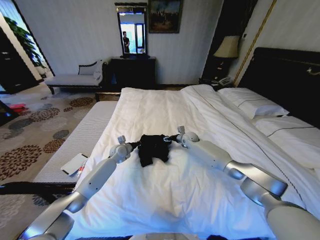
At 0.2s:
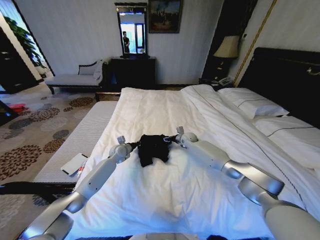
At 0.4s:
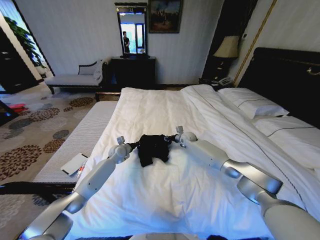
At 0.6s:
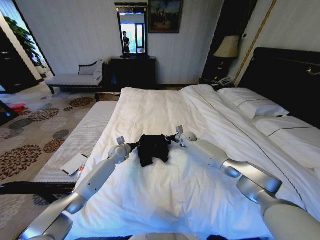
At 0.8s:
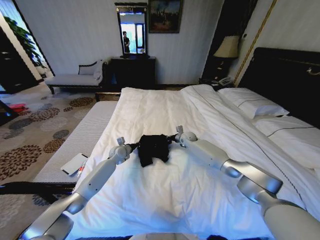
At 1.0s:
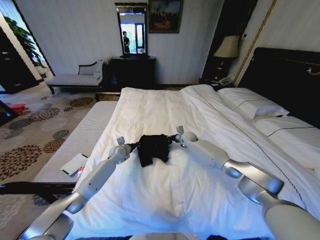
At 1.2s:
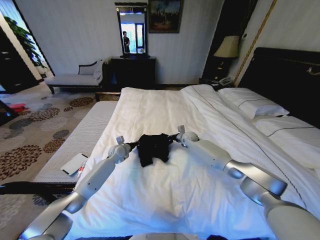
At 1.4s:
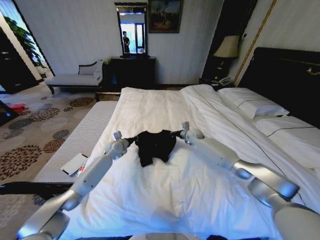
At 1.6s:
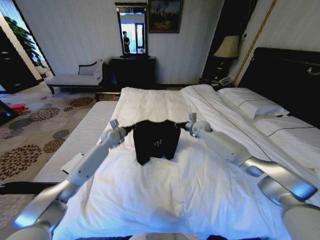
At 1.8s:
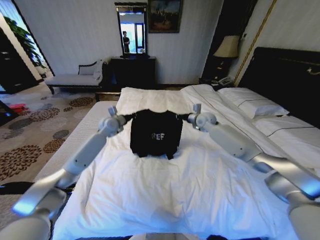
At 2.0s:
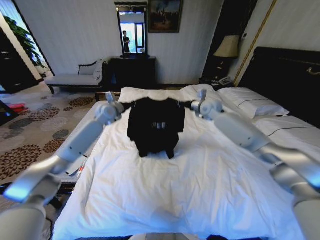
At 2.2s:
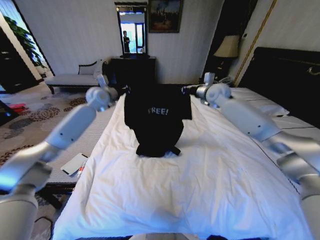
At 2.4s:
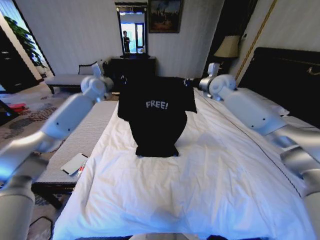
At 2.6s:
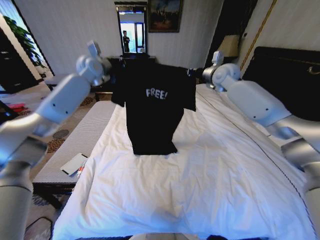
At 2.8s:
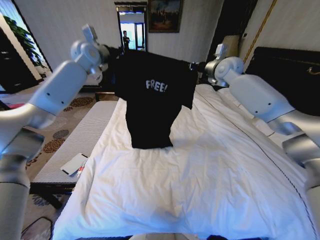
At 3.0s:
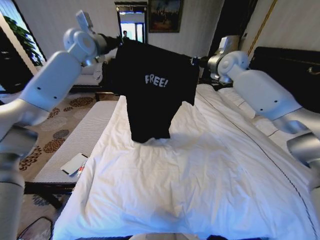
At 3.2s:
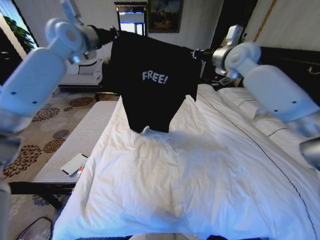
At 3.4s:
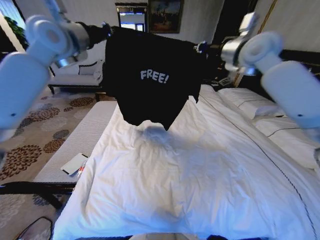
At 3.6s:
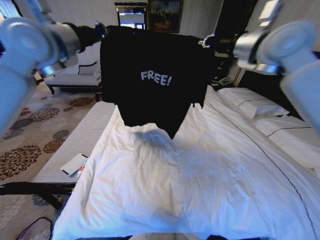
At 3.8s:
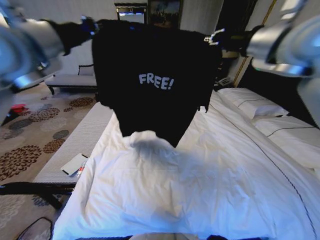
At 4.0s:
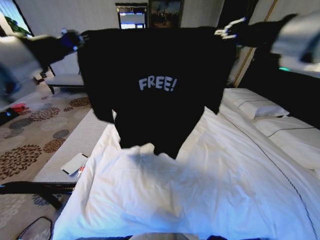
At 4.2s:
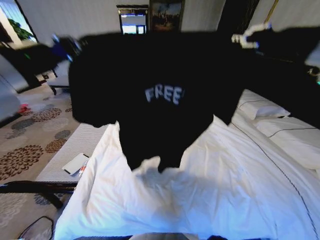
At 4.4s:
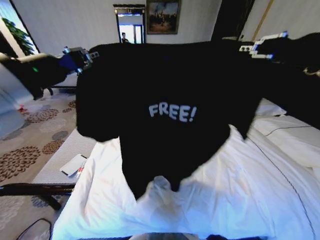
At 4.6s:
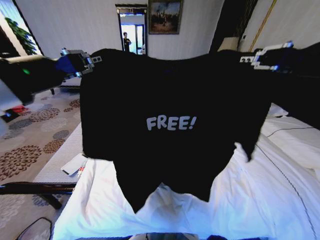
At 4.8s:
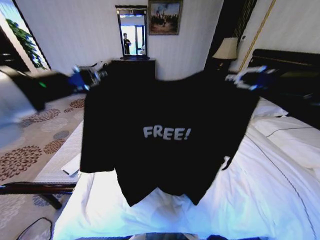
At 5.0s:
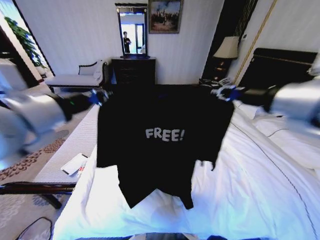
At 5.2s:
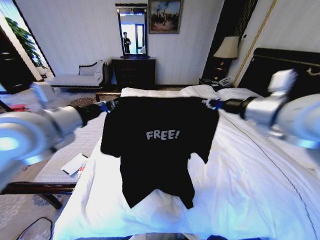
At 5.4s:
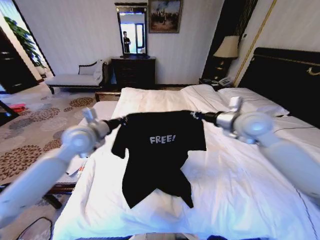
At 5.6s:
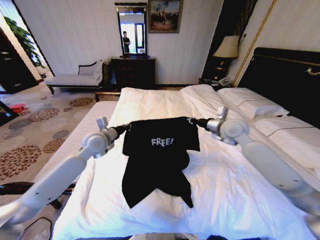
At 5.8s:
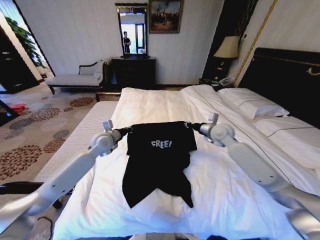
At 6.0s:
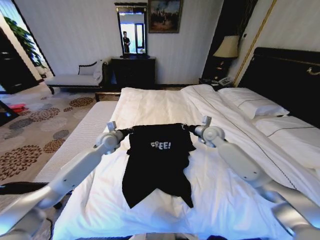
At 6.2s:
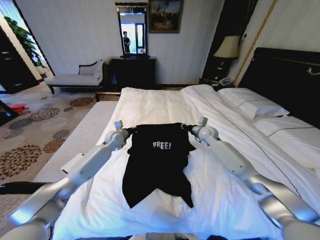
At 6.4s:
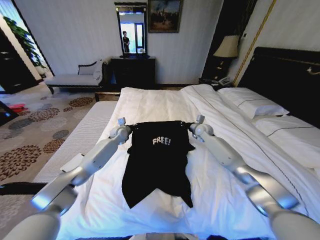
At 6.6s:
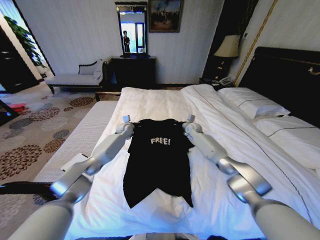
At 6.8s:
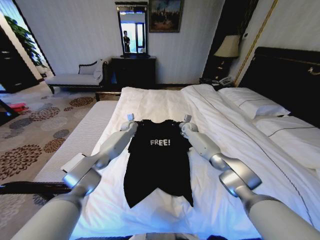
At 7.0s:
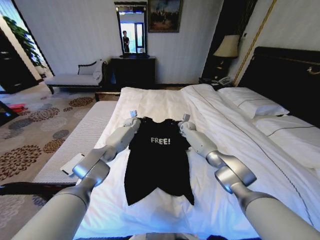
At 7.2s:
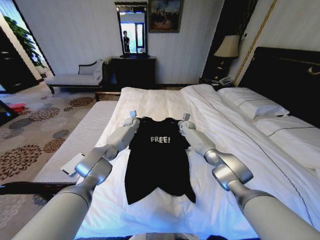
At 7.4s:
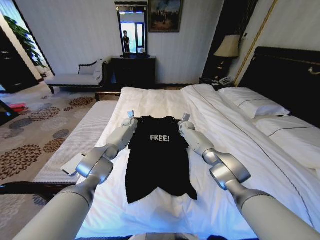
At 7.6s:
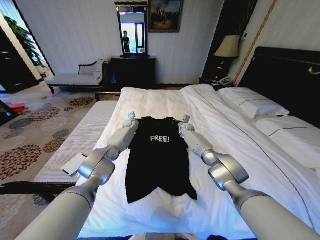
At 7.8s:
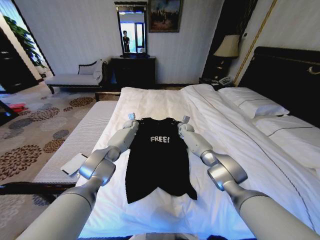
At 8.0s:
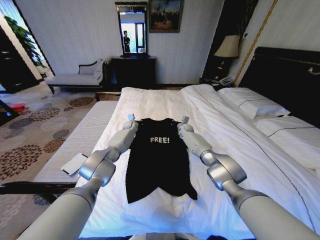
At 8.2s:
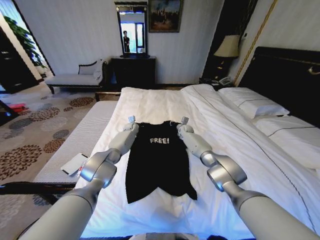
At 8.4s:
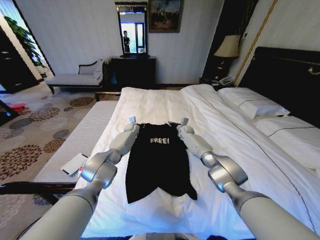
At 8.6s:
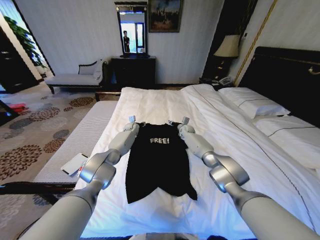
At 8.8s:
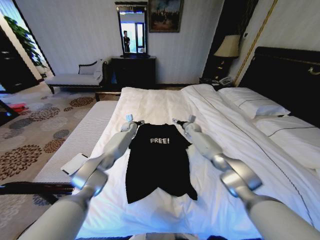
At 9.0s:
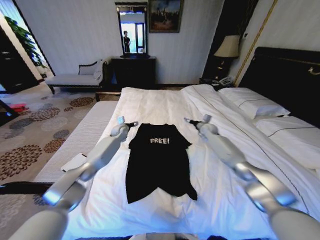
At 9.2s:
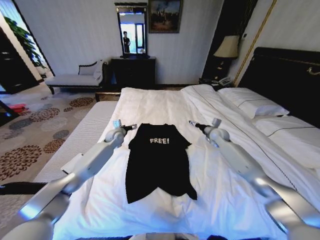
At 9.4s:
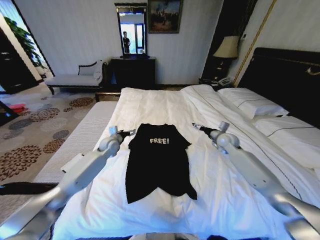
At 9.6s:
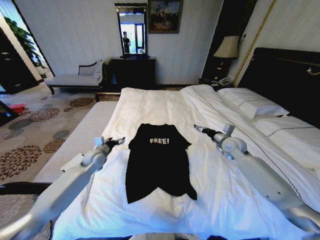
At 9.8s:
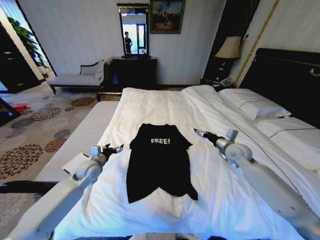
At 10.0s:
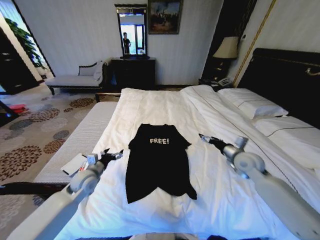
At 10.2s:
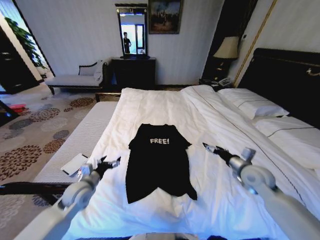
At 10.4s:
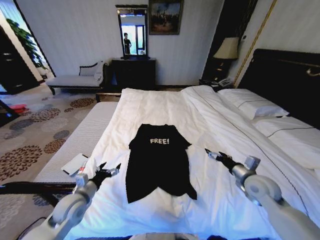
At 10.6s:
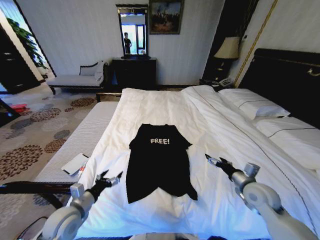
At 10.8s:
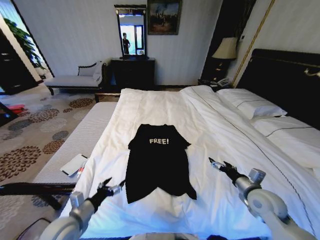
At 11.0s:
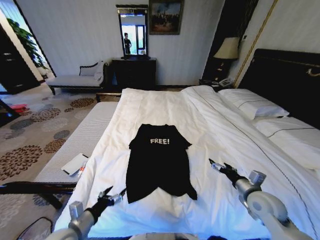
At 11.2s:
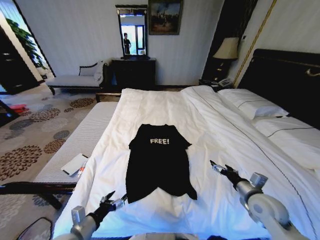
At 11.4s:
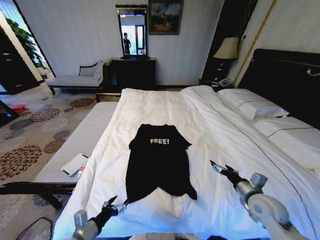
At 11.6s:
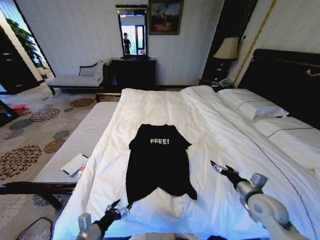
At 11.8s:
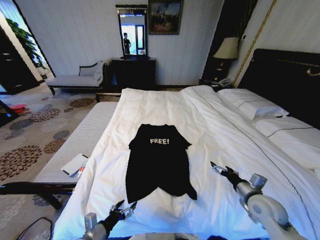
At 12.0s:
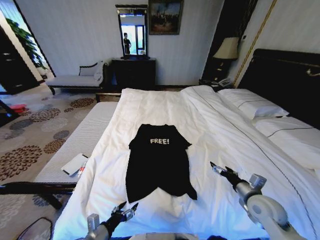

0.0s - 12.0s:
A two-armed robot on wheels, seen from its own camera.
Task of the whole recording: Fold the clothes on the bed.
0.0s - 1.6s: The grippers both shift upward by approximately 10 cm. The right gripper closes its fingers.
1.6s - 3.0s: The grippers both shift upward by some 35 cm.
3.0s - 4.4s: Both grippers move backward, some 40 cm.
4.4s - 6.0s: Both grippers travel together downward and forward, about 40 cm.
6.0s - 7.6s: The right gripper shifts approximately 20 cm forward, downward and to the left; the left gripper heads forward, covering approximately 20 cm.
7.6s - 9.0s: The left gripper goes approximately 10 cm backward and to the left, and opens. Meanwhile the right gripper is displaced to the right and backward by some 15 cm, and opens its fingers.
9.0s - 10.4s: The two grippers go roughly 35 cm backward.
10.4s - 12.0s: The left gripper travels backward, downward and to the right by about 15 cm, while the right gripper travels backward by roughly 5 cm.

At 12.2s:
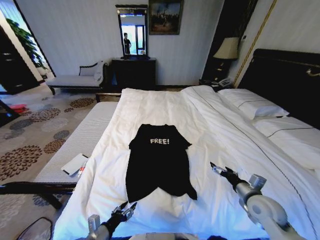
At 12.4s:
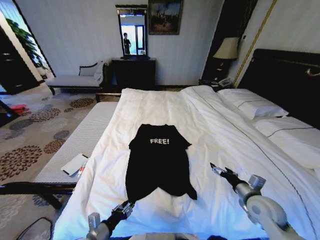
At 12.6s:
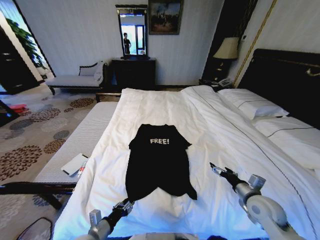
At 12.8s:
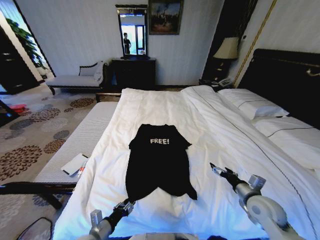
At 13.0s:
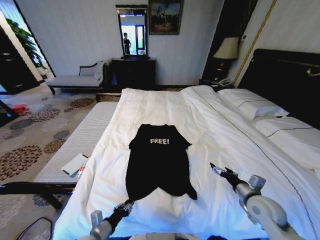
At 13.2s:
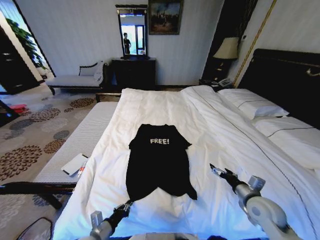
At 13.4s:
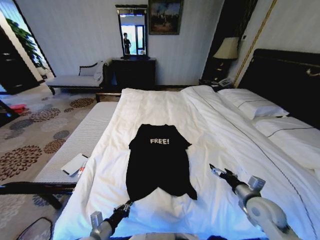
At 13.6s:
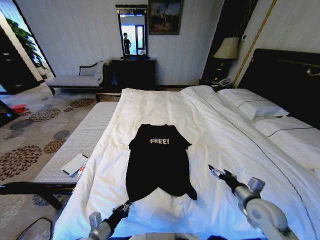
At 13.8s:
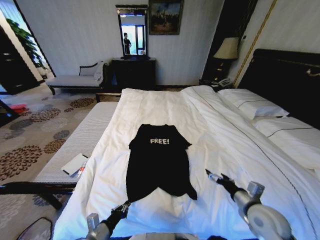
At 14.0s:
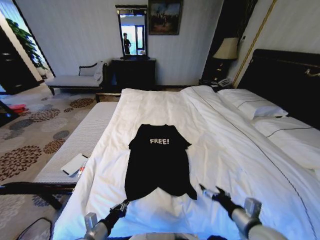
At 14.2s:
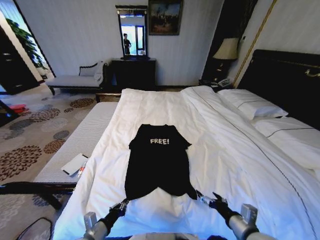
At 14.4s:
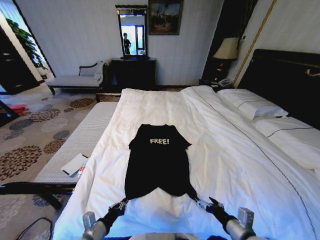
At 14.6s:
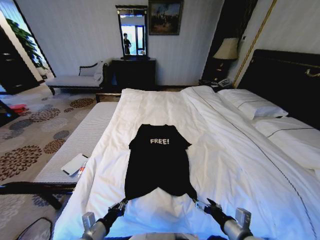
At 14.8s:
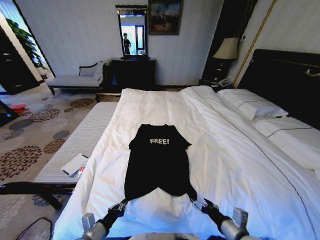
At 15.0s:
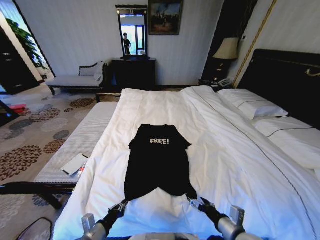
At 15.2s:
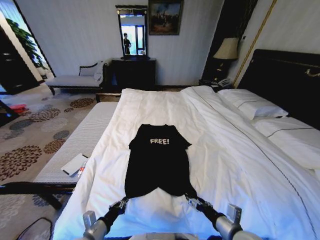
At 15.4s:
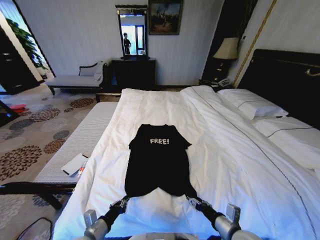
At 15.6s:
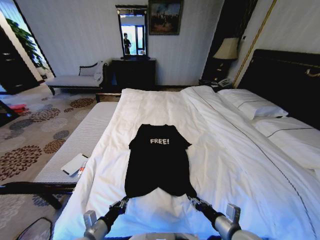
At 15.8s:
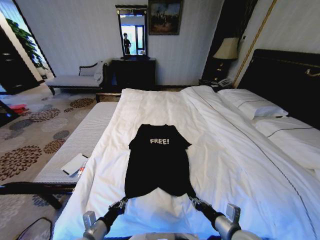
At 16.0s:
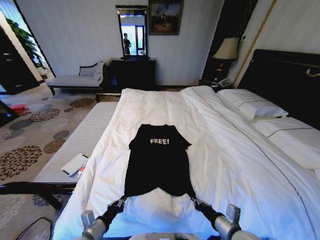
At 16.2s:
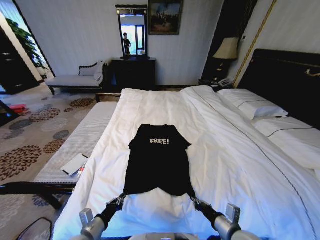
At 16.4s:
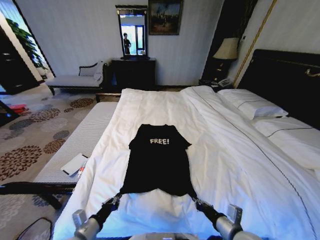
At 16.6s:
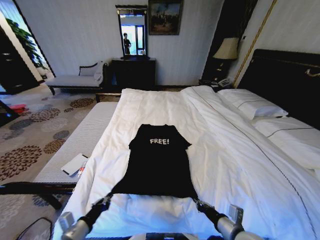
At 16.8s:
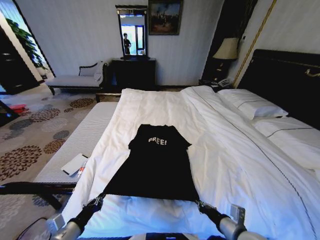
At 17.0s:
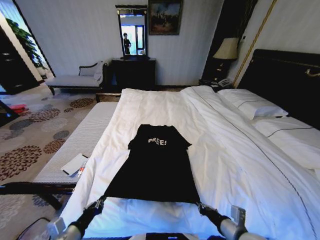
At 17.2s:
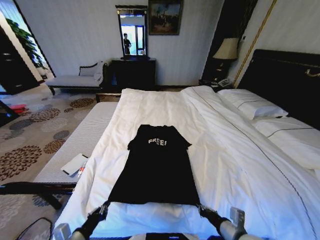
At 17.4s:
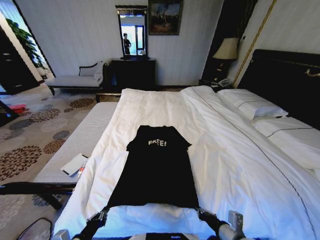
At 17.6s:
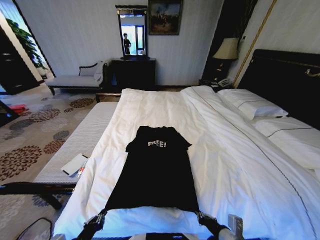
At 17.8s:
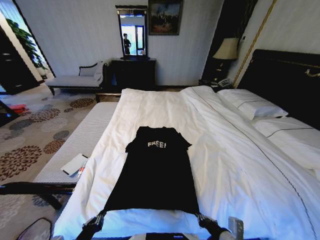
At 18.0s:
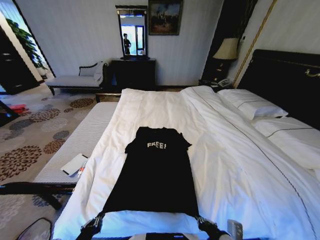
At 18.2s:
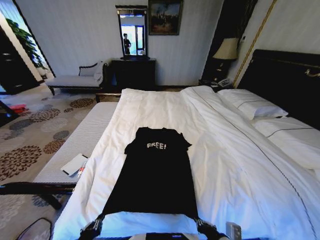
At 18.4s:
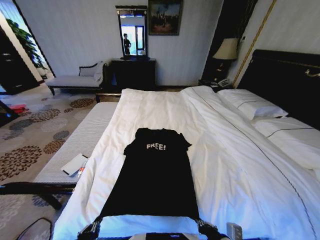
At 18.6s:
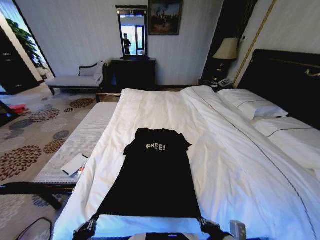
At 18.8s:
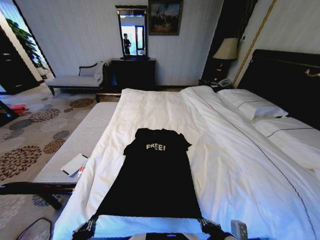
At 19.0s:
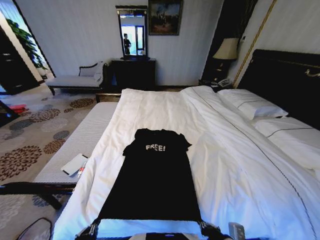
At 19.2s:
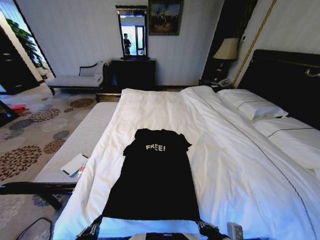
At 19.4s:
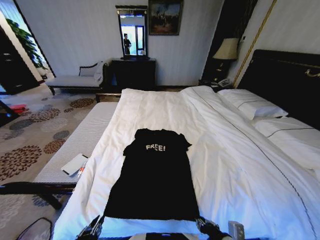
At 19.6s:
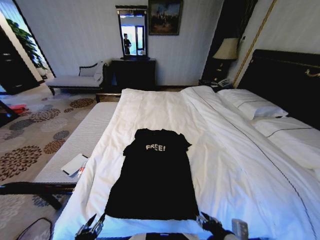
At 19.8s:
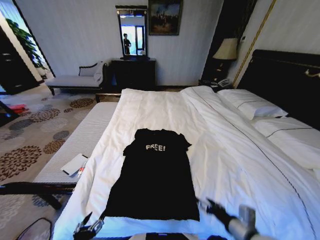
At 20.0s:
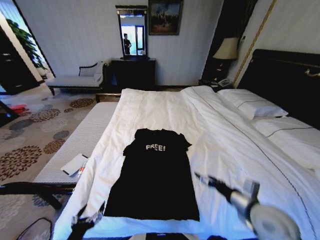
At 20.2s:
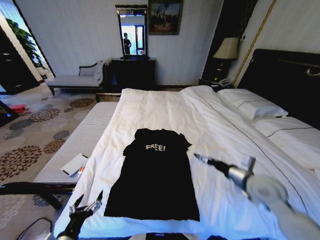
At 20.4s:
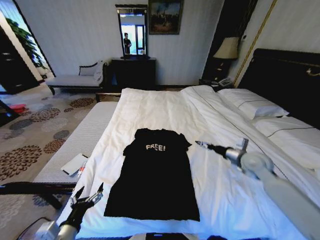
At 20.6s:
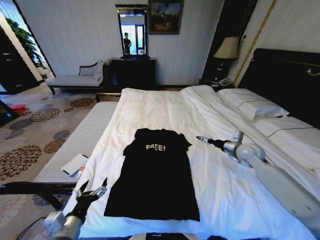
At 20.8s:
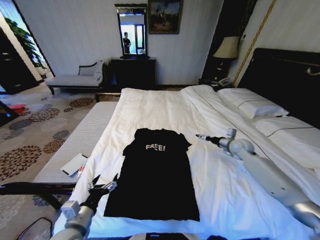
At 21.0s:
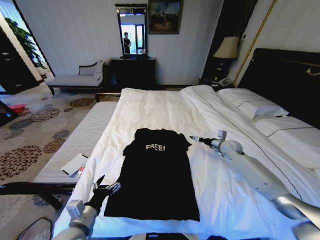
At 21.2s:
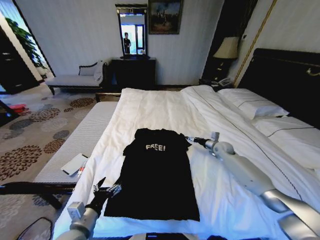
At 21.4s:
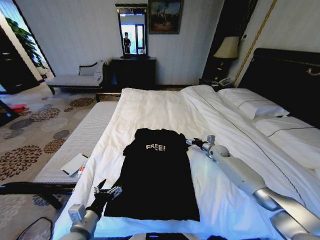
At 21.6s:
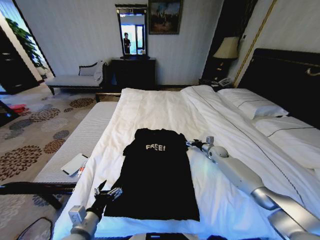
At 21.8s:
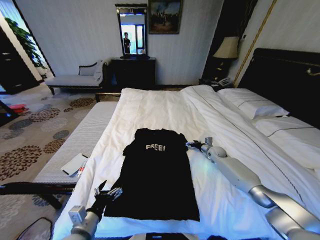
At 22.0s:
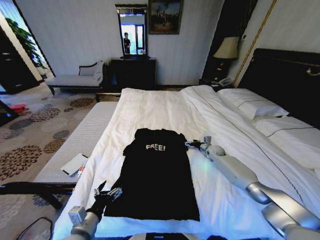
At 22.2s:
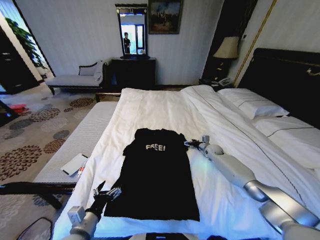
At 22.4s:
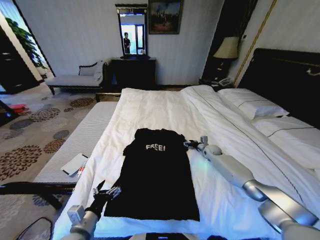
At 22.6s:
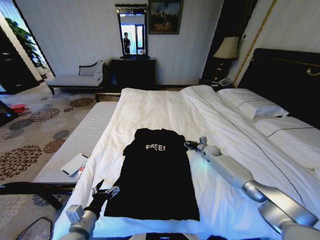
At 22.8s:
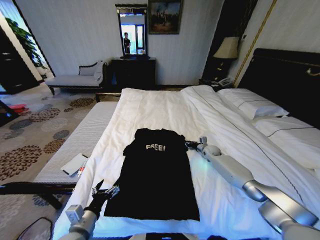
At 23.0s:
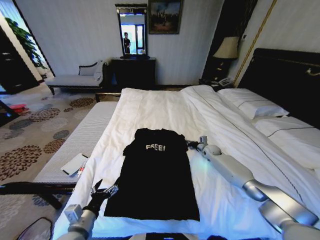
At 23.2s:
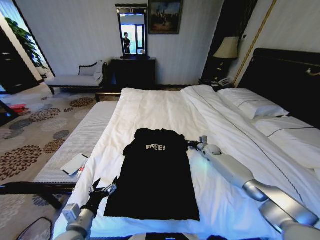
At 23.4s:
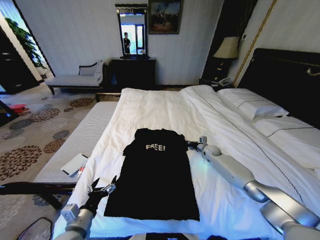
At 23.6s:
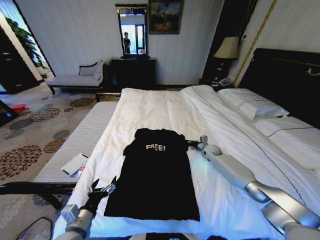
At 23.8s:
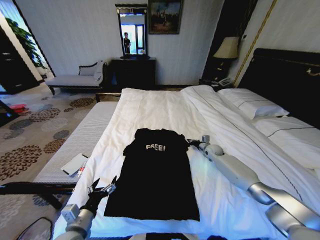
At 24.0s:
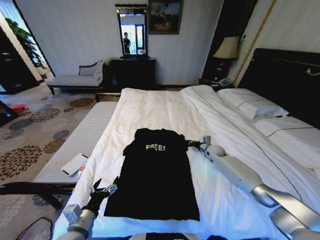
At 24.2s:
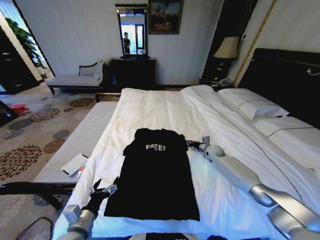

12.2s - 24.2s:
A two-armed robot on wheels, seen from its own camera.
Task of the whole recording: Fold the clothes on the bed.
12.2s - 13.8s: The right gripper shifts by about 5 cm. Meanwhile the left gripper closes its fingers.
13.8s - 15.2s: The right gripper moves to the left and backward, about 10 cm.
15.2s - 16.6s: The right gripper closes its fingers. The left gripper ends up about 5 cm from where it was.
16.6s - 18.2s: The left gripper travels backward by roughly 10 cm; the right gripper moves approximately 5 cm.
18.2s - 19.8s: The left gripper opens its fingers. The right gripper is displaced upward by some 5 cm, and opens.
19.8s - 21.2s: The left gripper shifts some 10 cm forward. The right gripper goes roughly 40 cm forward.
21.2s - 22.6s: The right gripper travels downward by about 5 cm, and closes its fingers.
22.6s - 24.2s: The right gripper closes up.
